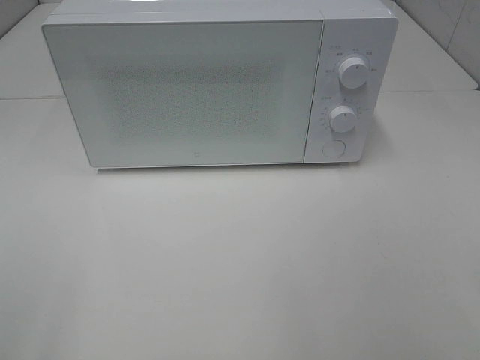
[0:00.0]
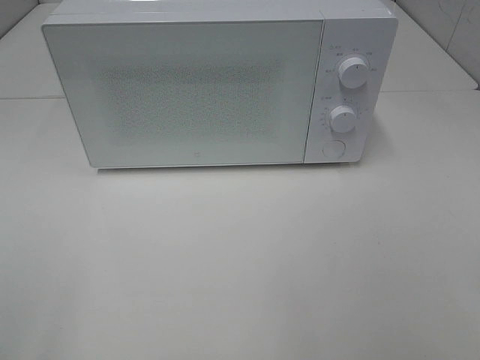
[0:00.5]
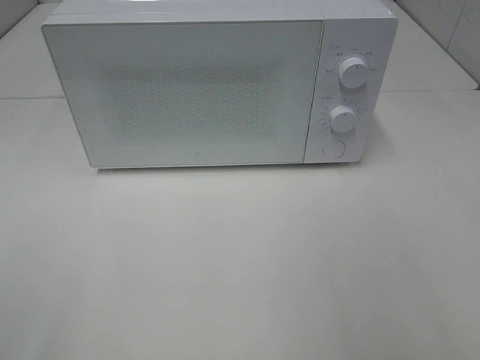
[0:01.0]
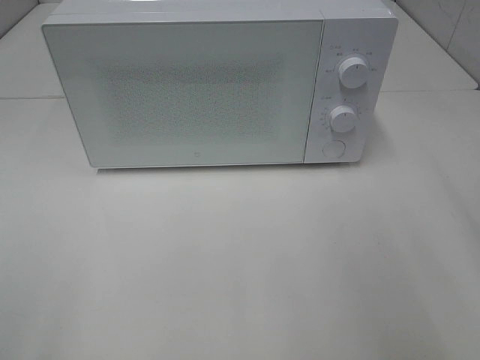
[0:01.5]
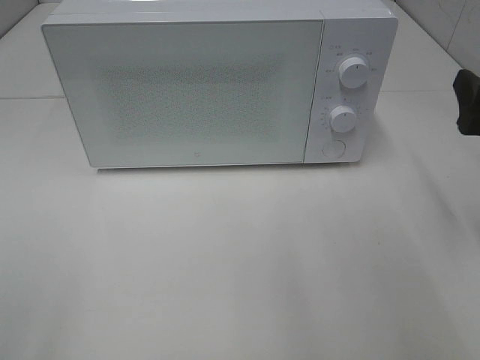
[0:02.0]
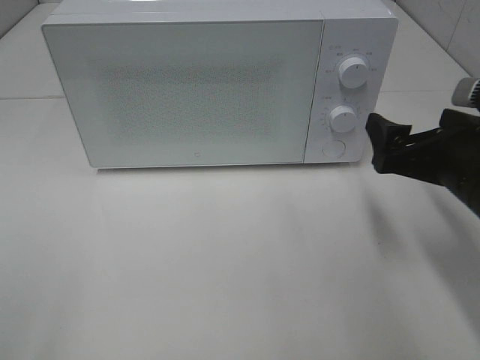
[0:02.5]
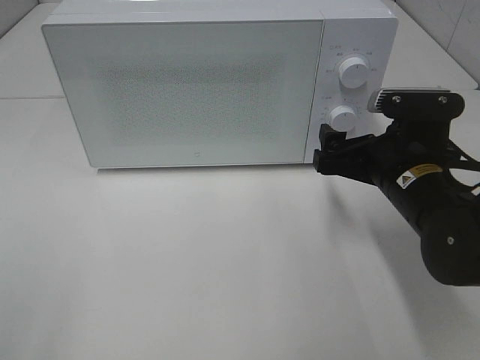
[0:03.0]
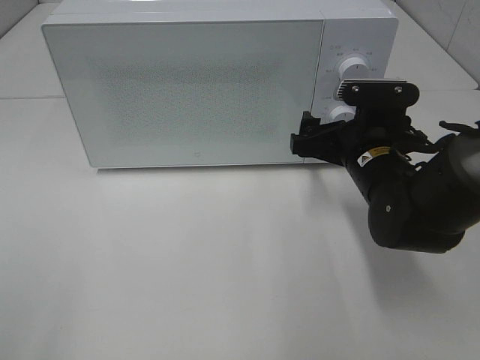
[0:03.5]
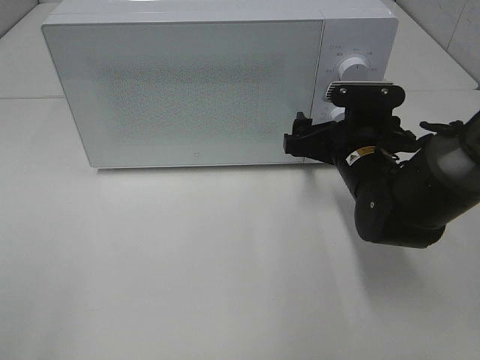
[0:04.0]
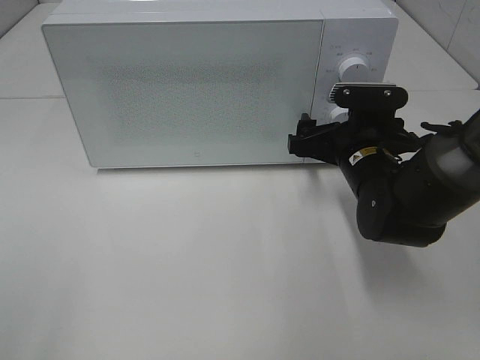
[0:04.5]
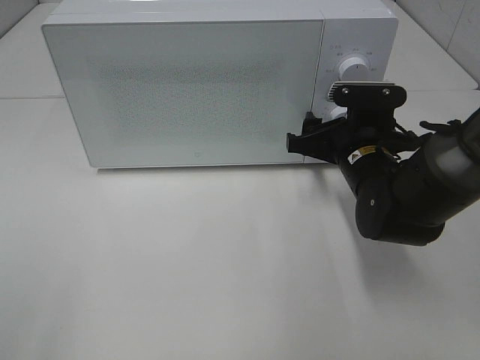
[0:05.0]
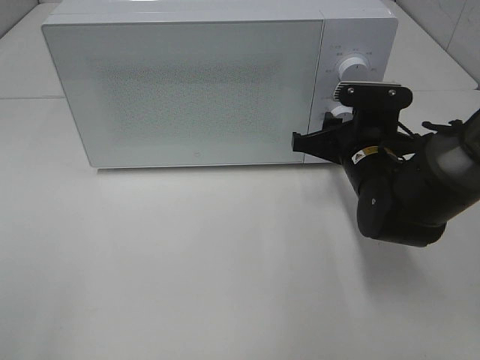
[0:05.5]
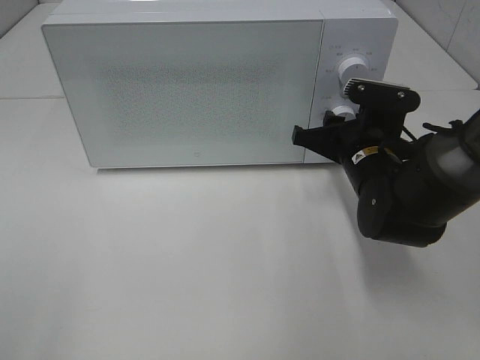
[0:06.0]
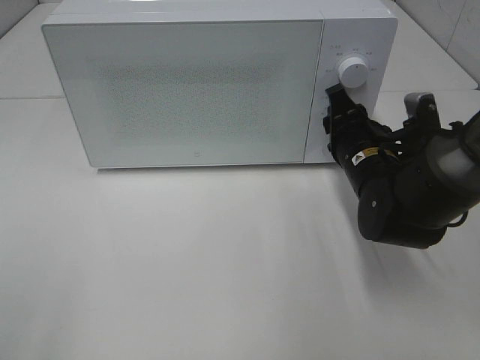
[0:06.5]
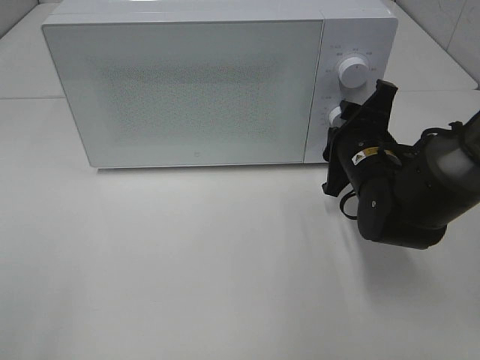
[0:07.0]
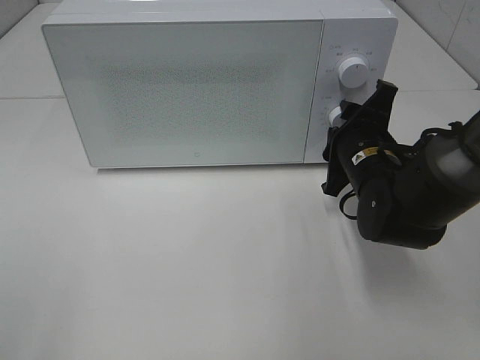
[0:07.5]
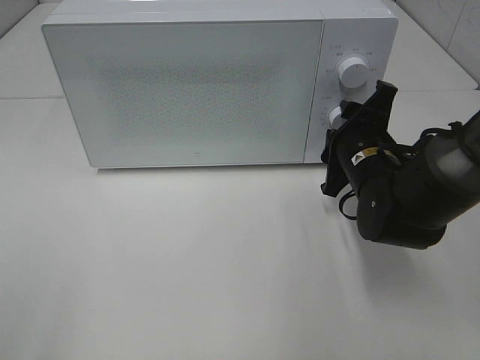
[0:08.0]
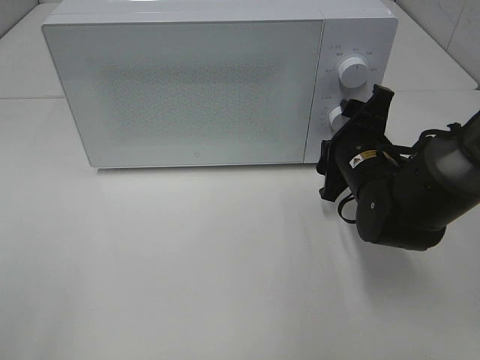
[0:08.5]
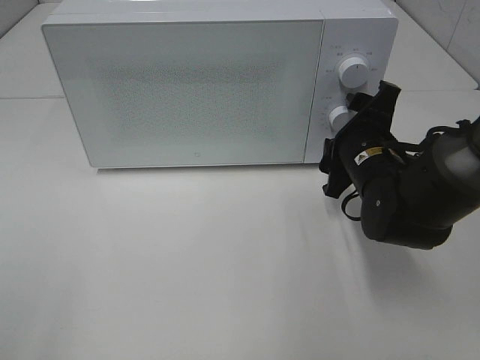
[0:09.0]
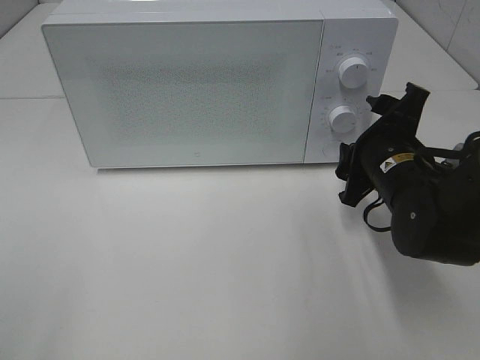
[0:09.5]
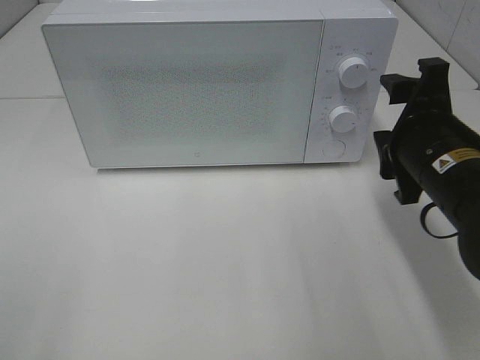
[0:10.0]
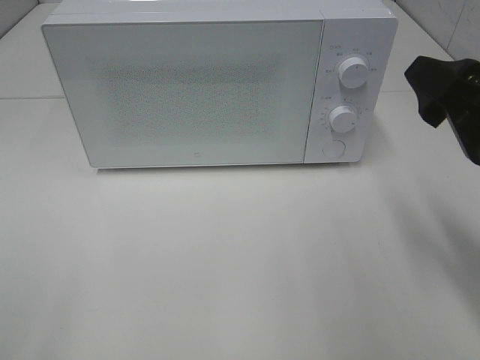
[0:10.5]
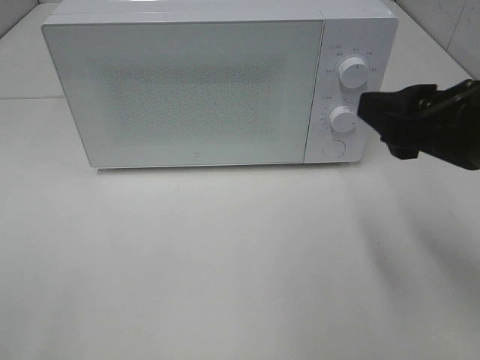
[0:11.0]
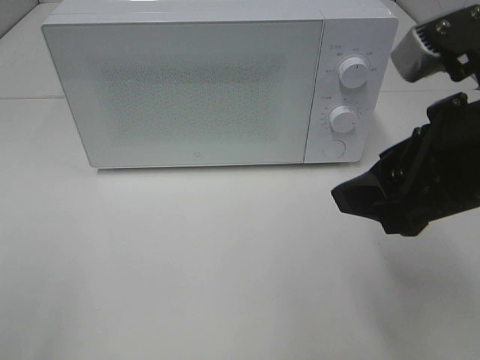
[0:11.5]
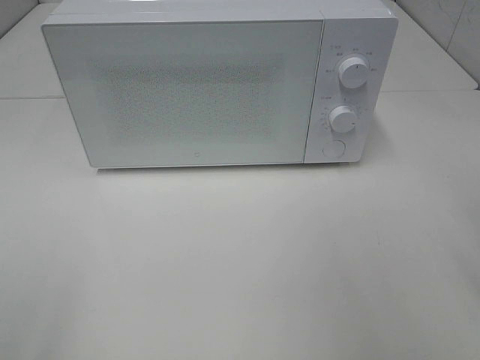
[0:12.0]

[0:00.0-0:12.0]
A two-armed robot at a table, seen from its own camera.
Task of the whole recording: Heat the burger.
Step, 0:00.0 to 0:08.0: Right hand: twist timer button.
0:00.0 to 0:02.0: The right gripper heads forward, covering roughly 25 cm.
0:02.0 to 0:04.0: The right gripper is displaced to the left, downward and forward by roughly 20 cm.
0:04.0 to 0:06.0: The right gripper closes up.
0:08.0 to 0:10.0: The right gripper moves backward and upward, about 10 cm.
0:10.0 to 0:12.0: The right gripper is displaced upward, to the right and backward by some 15 cm.

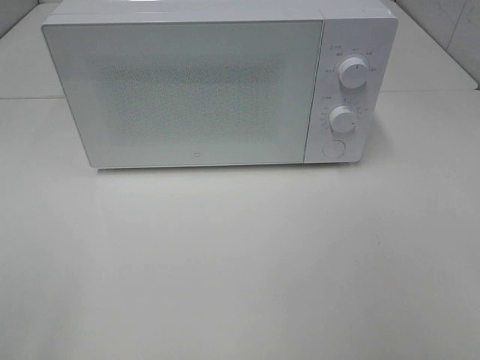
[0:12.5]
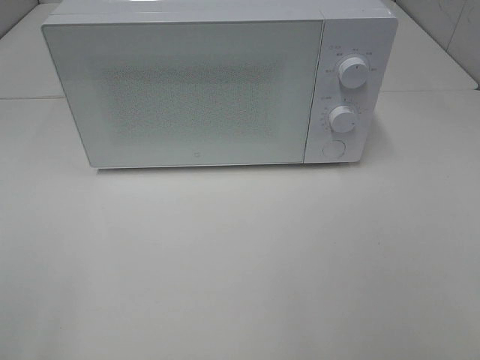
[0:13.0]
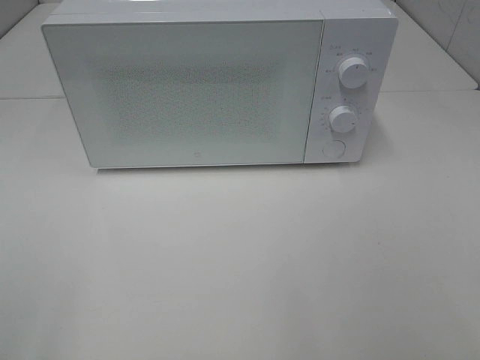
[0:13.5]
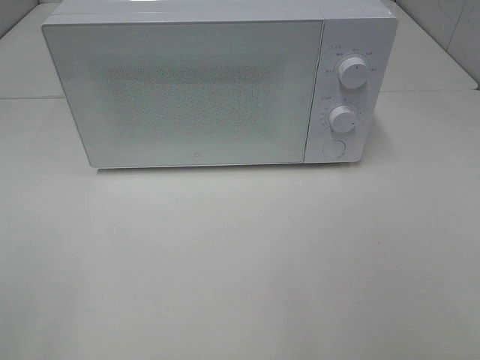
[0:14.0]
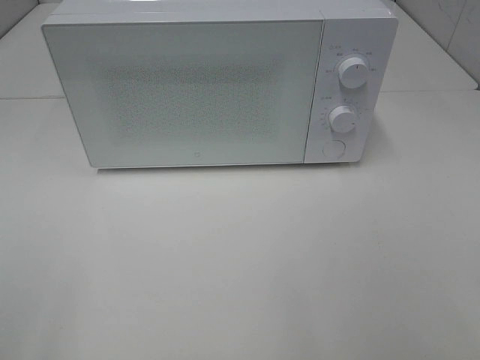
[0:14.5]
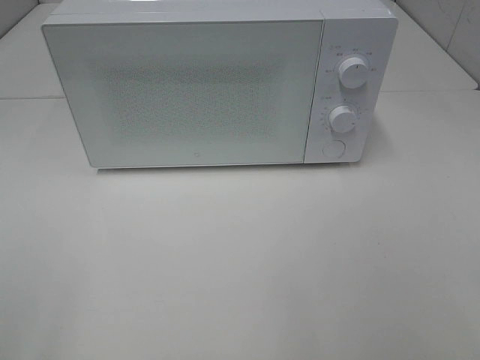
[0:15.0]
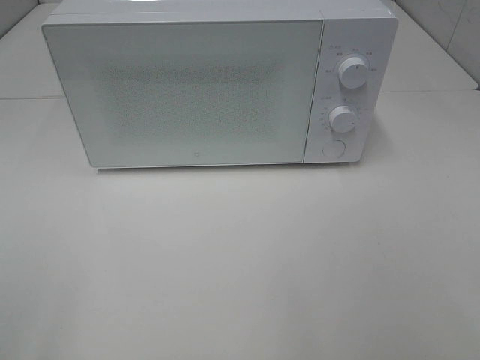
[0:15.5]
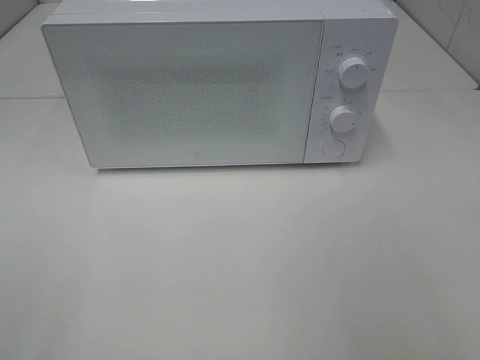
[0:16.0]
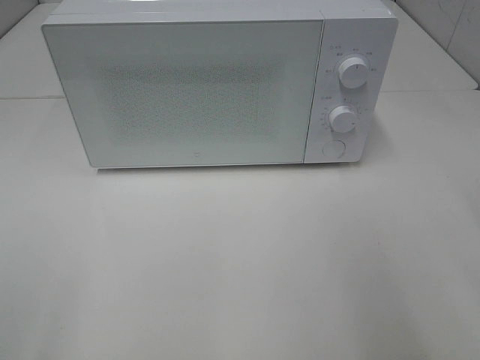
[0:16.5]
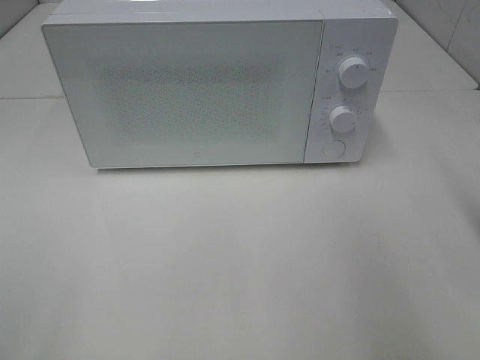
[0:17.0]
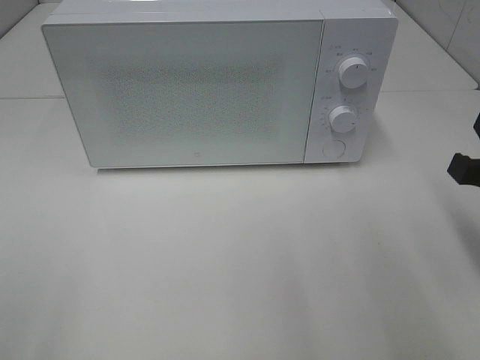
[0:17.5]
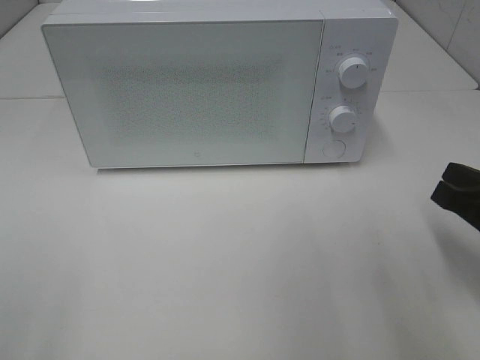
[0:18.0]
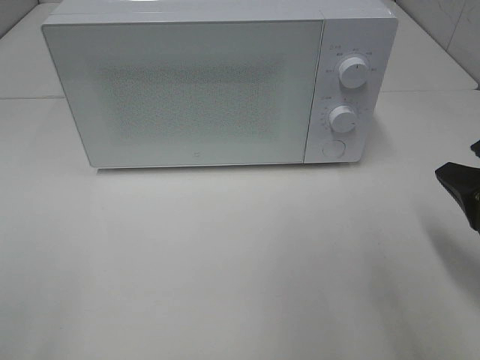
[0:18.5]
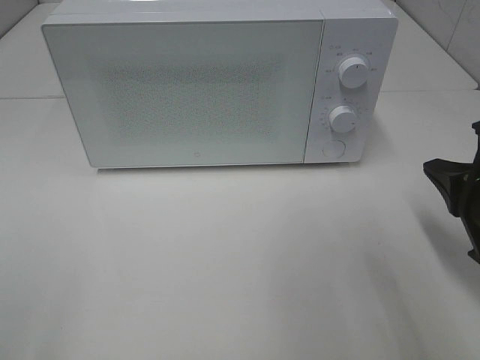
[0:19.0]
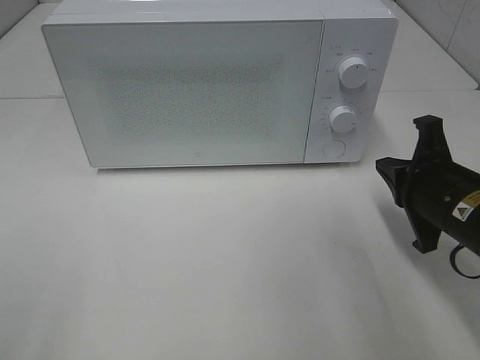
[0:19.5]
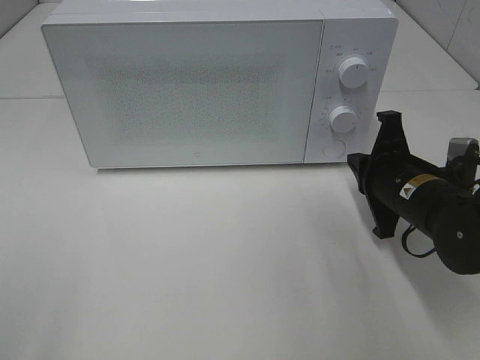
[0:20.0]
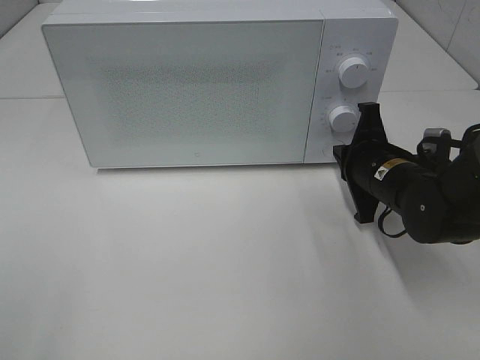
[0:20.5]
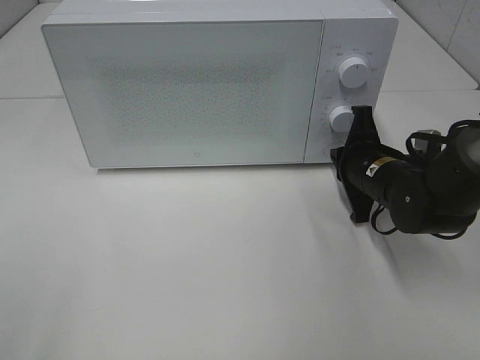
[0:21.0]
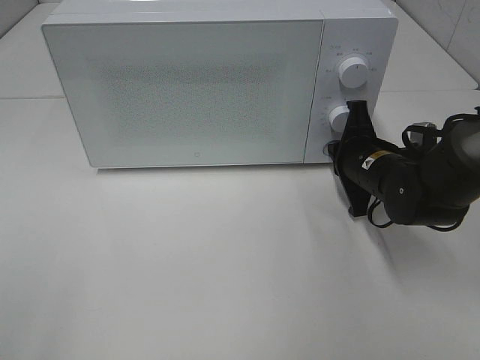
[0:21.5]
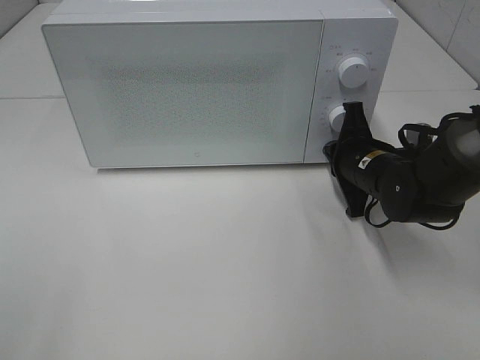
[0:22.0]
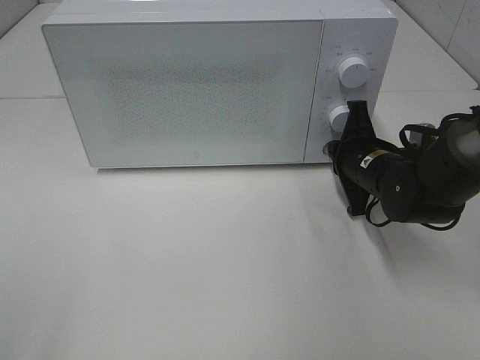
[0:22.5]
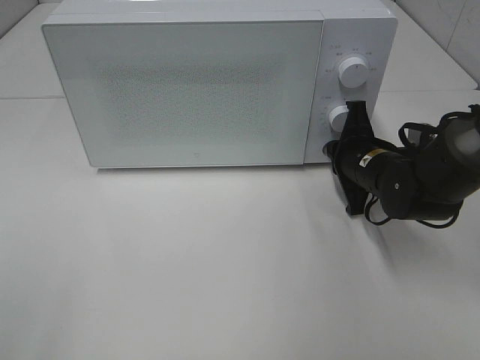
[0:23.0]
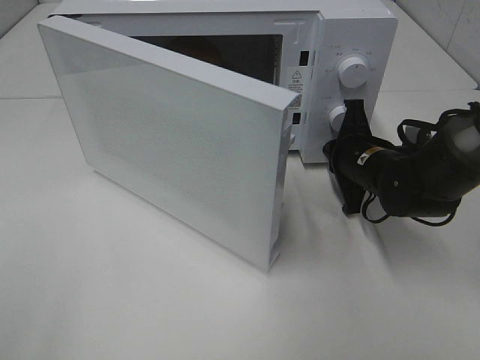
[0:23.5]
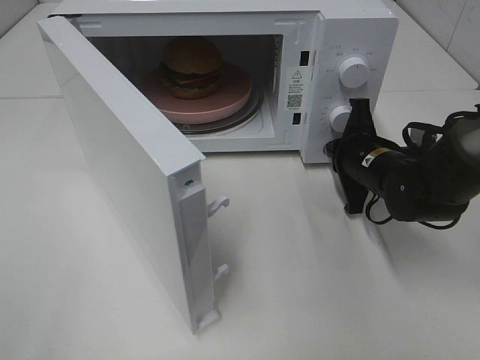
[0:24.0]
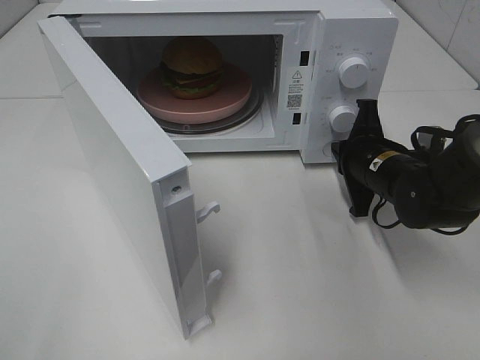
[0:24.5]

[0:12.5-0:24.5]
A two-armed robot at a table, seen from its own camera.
Task of the whole recording: Heat the burger.
0:16.5 to 0:18.5: The right gripper moves downward, some 10 cm.
0:18.5 to 0:20.5: The right gripper travels forward, to the left and downward by approximately 20 cm.
0:20.5 to 0:22.5: There are only small adjustments of the grippers.

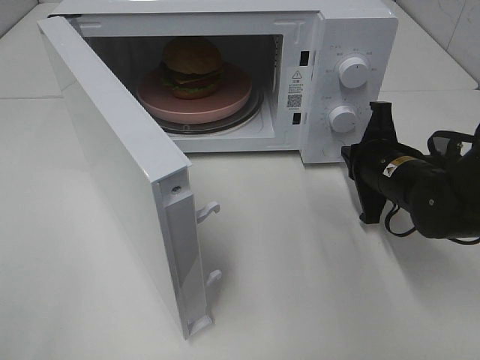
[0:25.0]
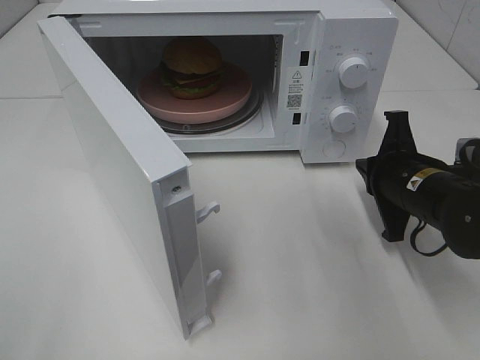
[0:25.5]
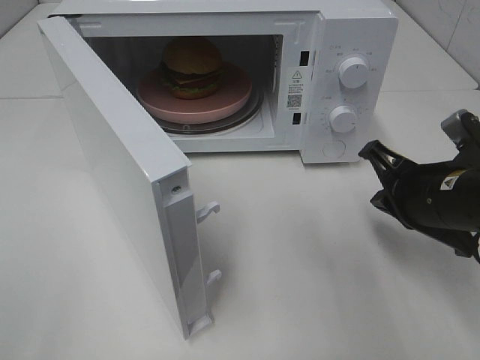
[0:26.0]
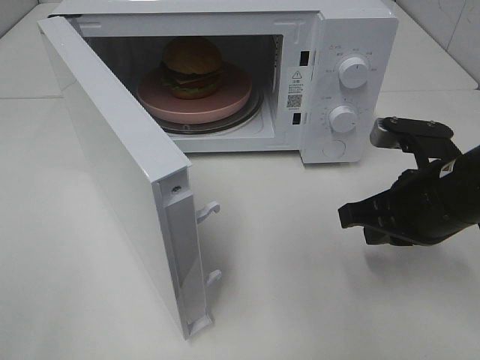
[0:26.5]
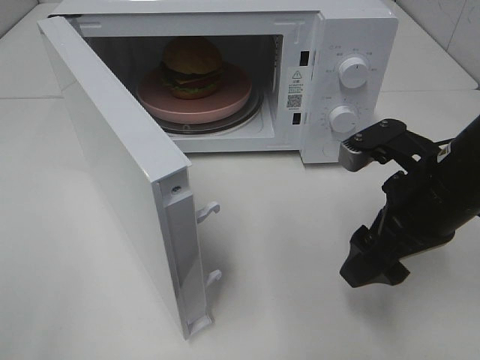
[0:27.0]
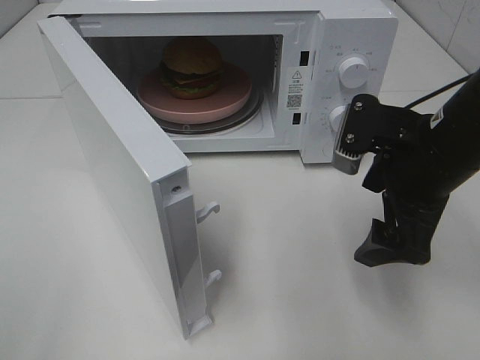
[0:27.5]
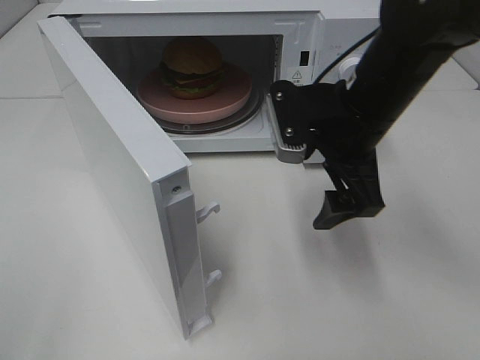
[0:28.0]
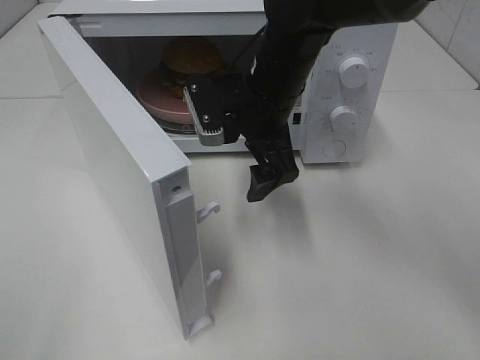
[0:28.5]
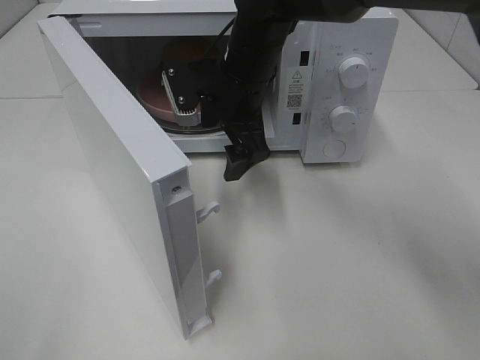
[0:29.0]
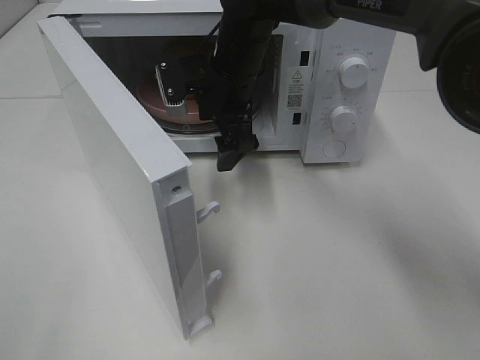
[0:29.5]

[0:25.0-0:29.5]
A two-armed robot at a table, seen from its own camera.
Task of the whole recording: Heat the burger.
0:25.0 to 0:27.0: The right gripper goes roughly 10 cm backward and upward, and opens.
0:27.0 to 0:29.5: The right gripper is displaced to the left and forward by about 25 cm.
